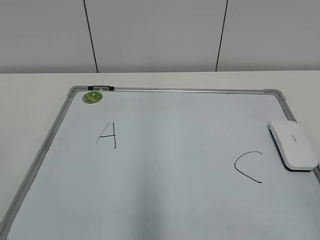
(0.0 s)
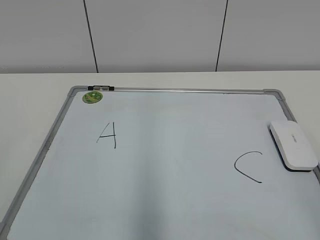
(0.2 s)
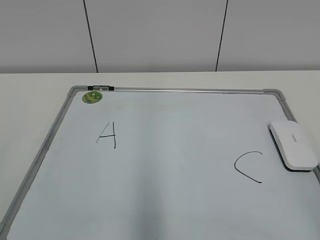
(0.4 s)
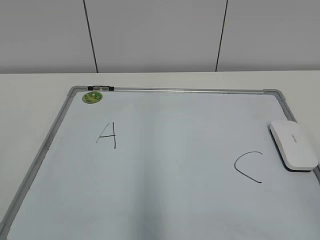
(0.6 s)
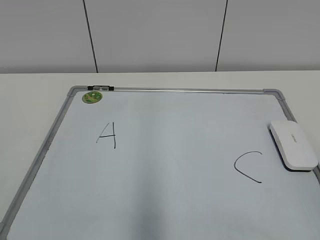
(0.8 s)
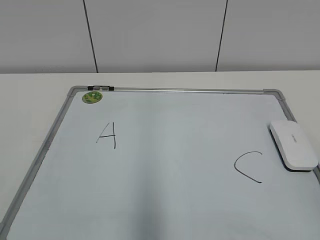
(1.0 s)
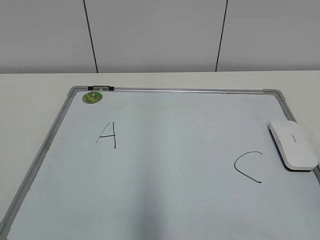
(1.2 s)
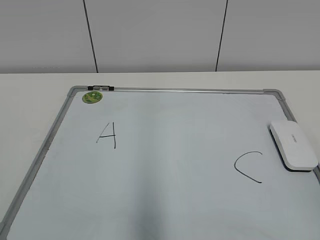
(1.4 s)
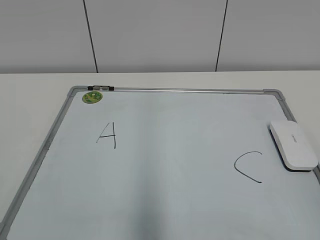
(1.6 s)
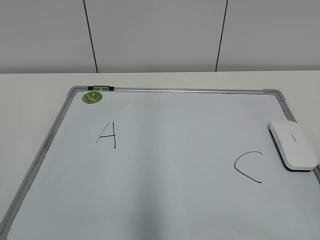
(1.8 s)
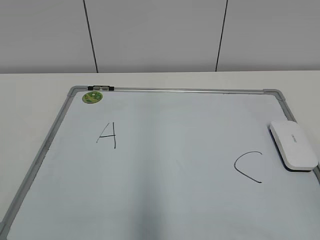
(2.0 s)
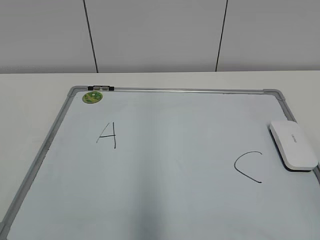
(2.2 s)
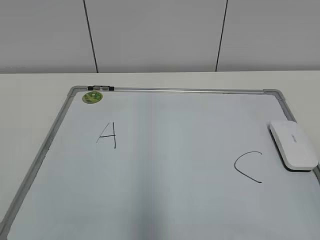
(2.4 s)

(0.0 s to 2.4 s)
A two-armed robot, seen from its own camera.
Task of the whole recording: pick up the eraser on the blackboard and erase the letter "B".
1.2 s - 2.4 s: Both grippers stay put.
